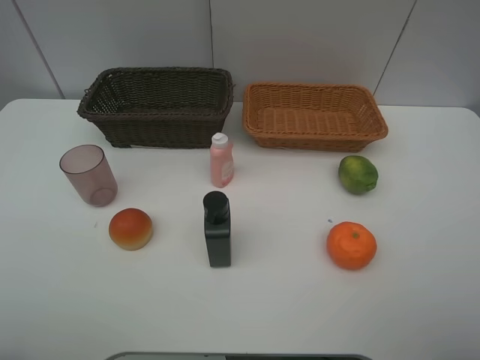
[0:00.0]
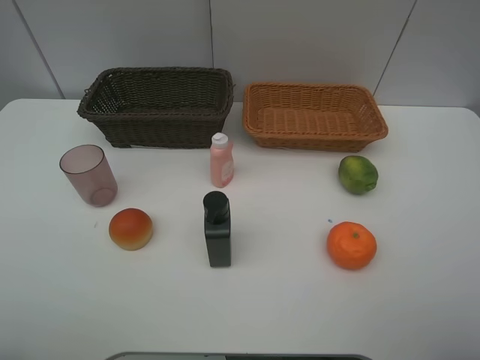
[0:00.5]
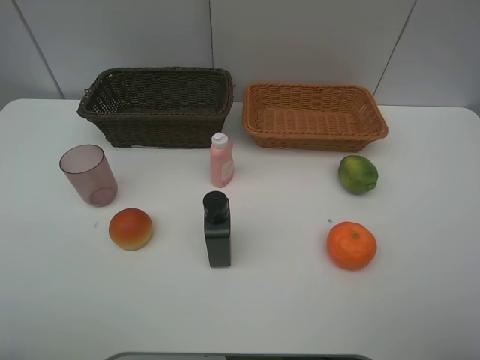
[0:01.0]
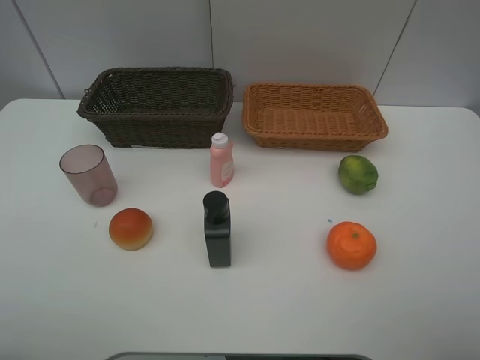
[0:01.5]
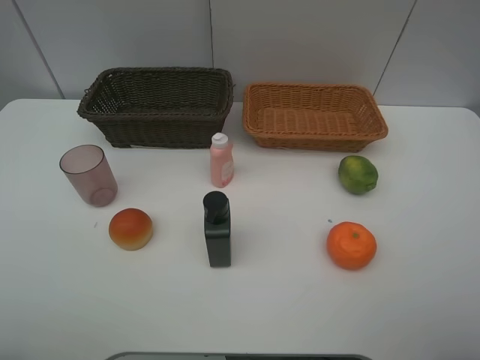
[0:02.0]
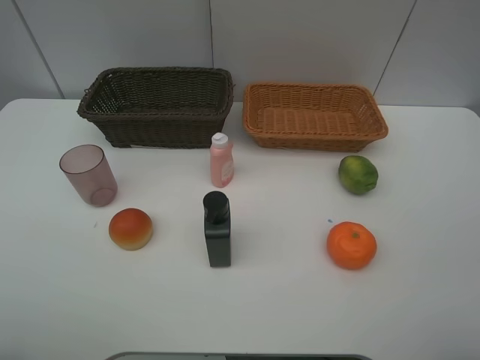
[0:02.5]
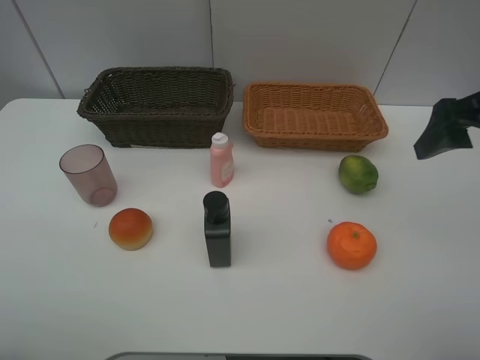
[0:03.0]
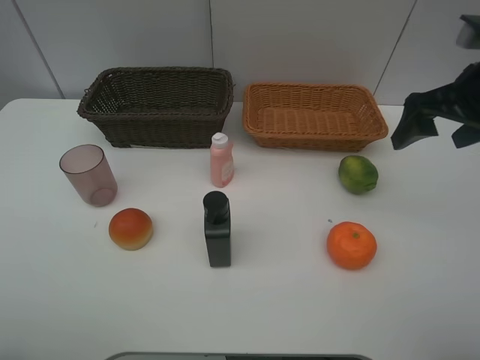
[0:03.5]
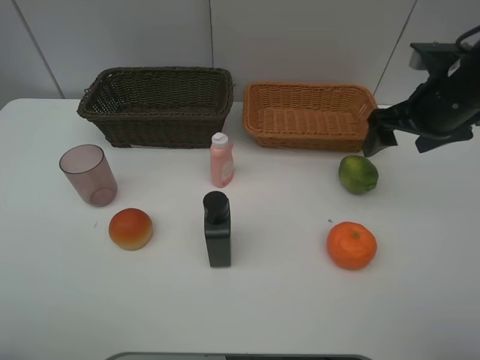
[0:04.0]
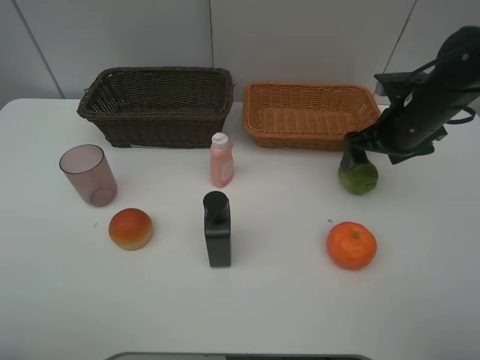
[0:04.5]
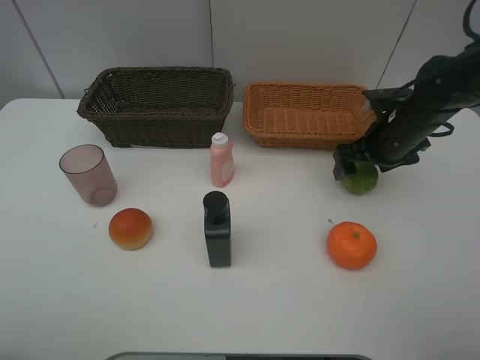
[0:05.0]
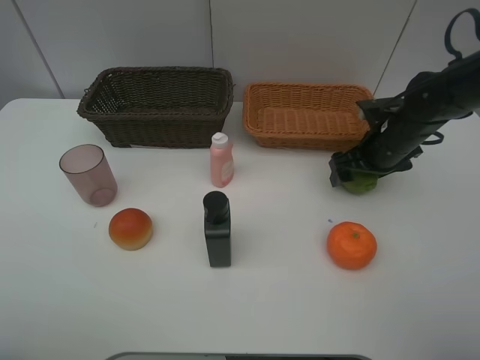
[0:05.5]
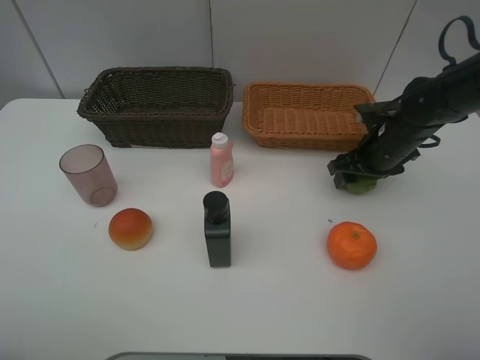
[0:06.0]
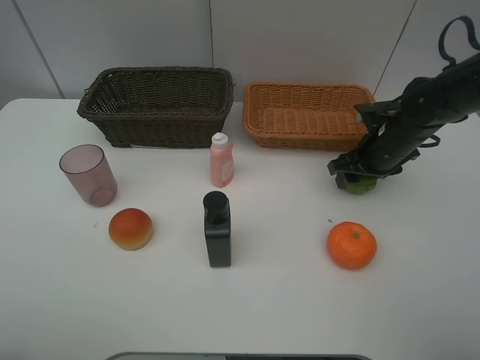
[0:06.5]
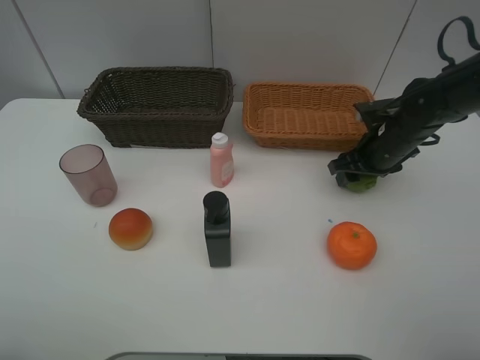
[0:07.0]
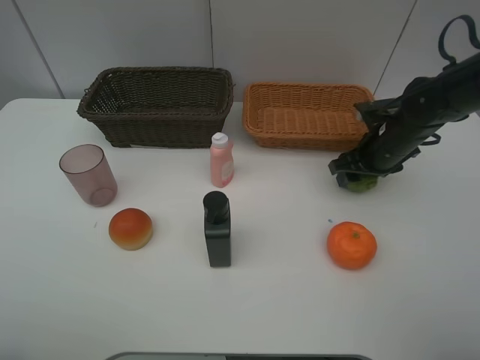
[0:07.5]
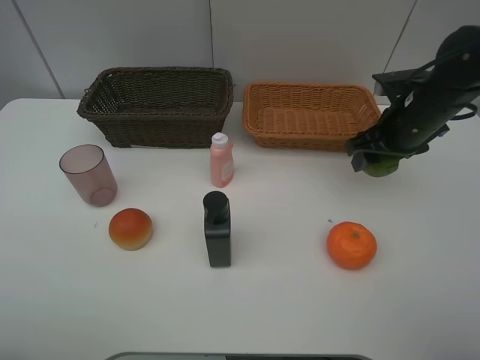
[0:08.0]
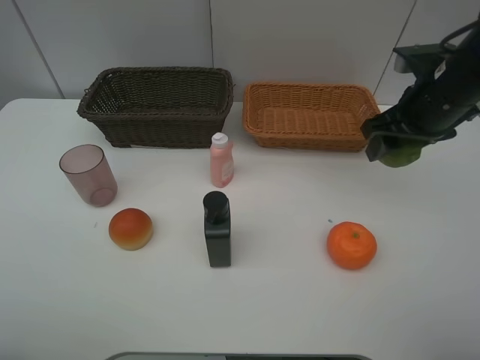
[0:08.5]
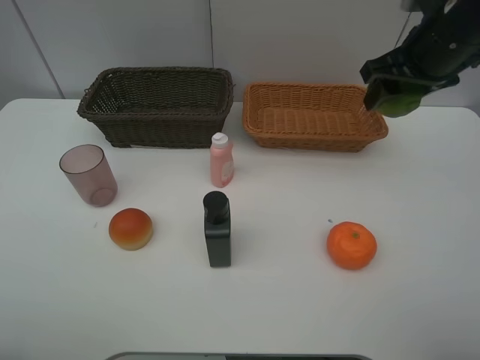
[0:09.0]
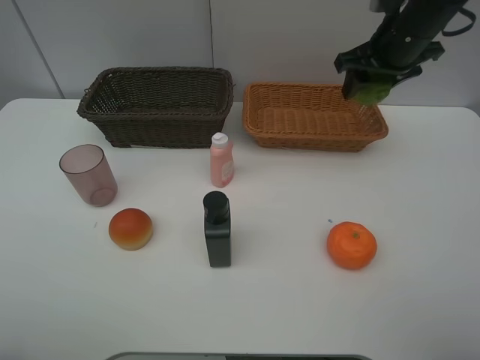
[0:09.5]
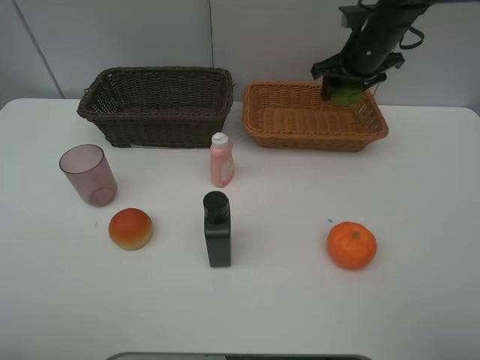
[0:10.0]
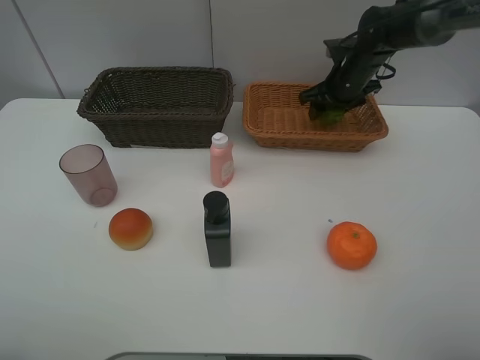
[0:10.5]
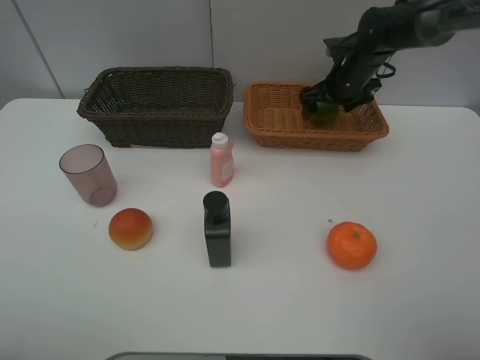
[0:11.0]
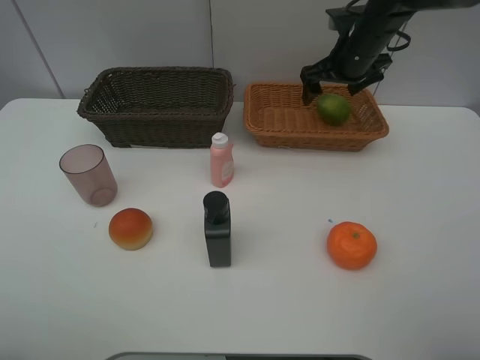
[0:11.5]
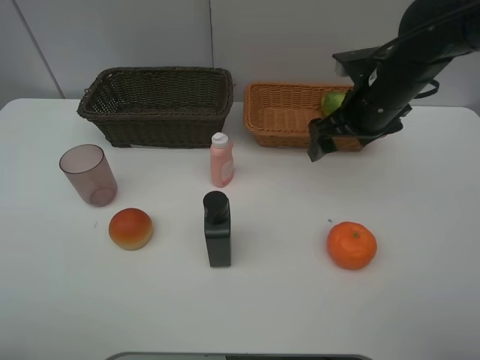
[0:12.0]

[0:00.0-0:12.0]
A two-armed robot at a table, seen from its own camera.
Task of the whole recording: place multiple objects separately in different baskets.
0.0 to 2.0 s: Both grippers stay put.
2.0 to 4.0 s: The right gripper moves forward, about 30 cm.
4.0 to 6.0 s: The right gripper shifts approximately 10 cm downward, and closes its fingers.
6.0 to 8.0 s: The right gripper shifts about 5 cm upward.
8.0 to 10.0 s: The right gripper moves forward, approximately 15 cm.
10.0 to 12.0 s: The right gripper travels backward by some 15 cm, and opens up.

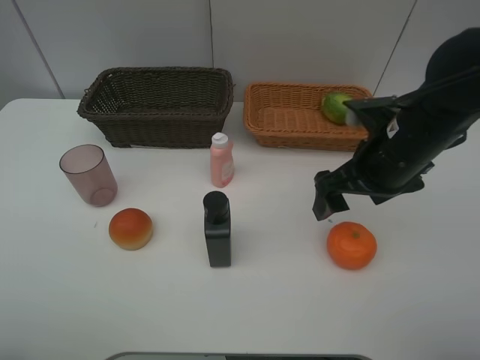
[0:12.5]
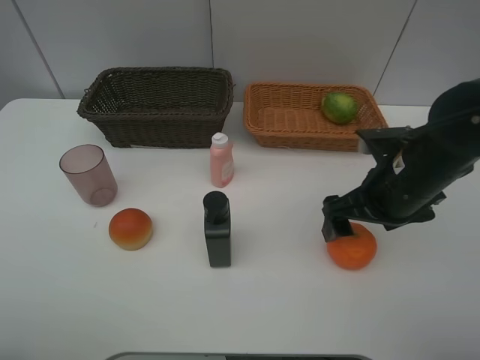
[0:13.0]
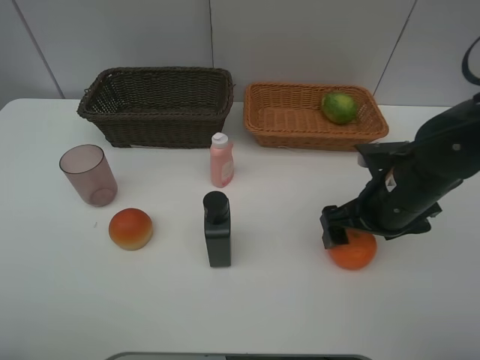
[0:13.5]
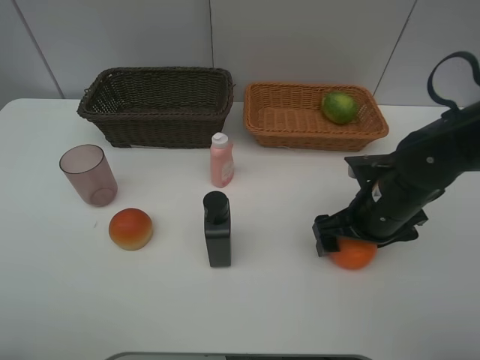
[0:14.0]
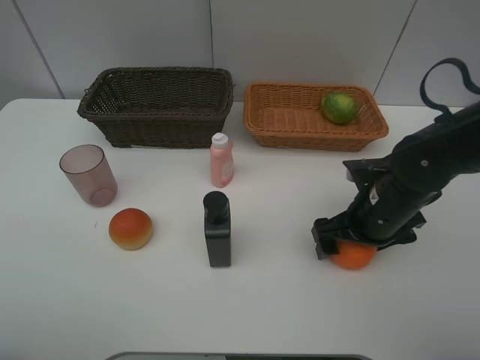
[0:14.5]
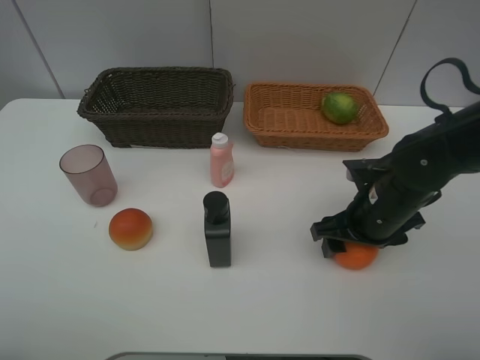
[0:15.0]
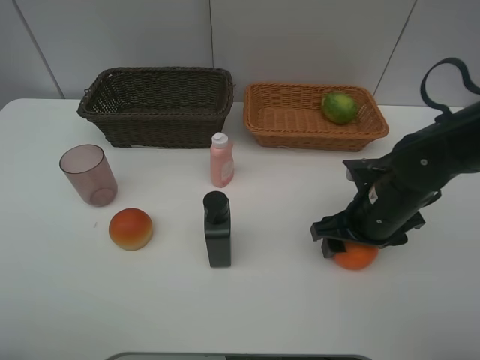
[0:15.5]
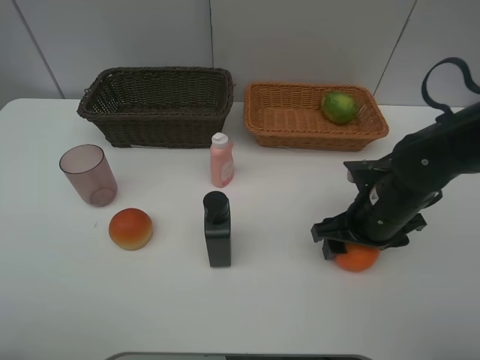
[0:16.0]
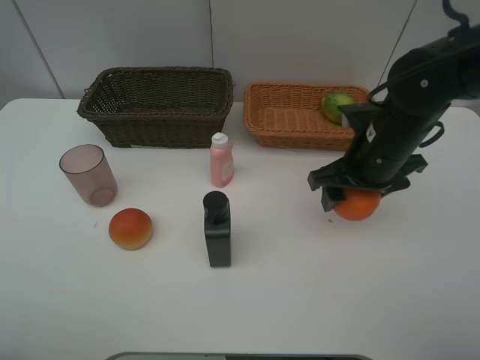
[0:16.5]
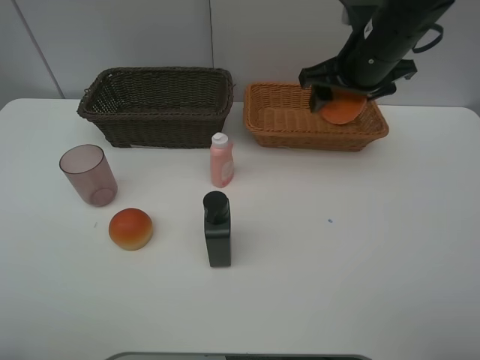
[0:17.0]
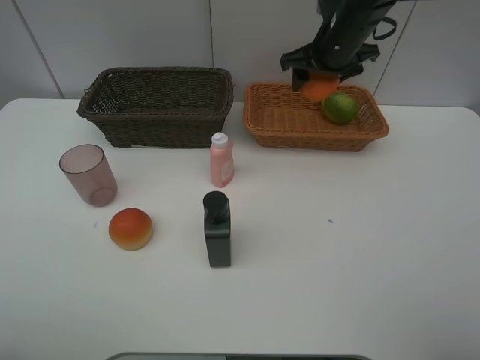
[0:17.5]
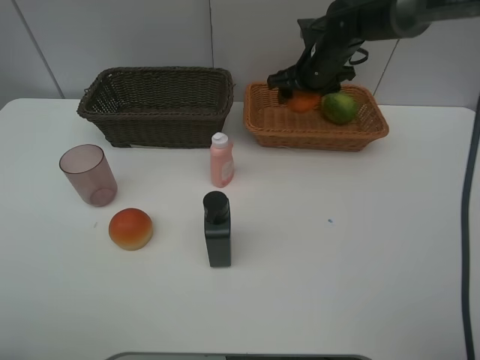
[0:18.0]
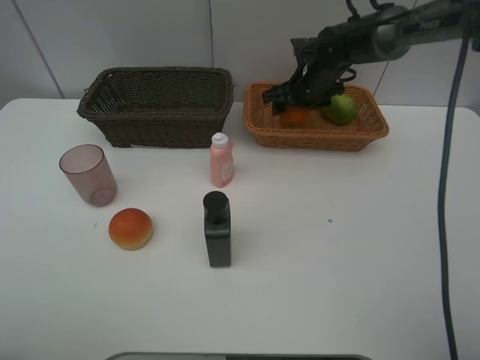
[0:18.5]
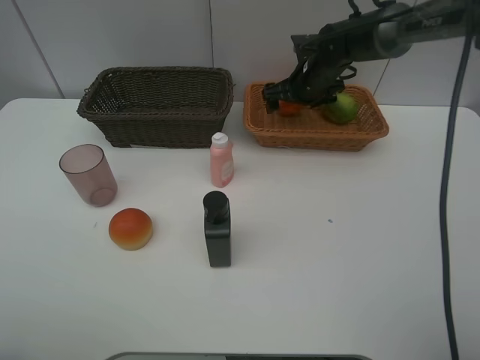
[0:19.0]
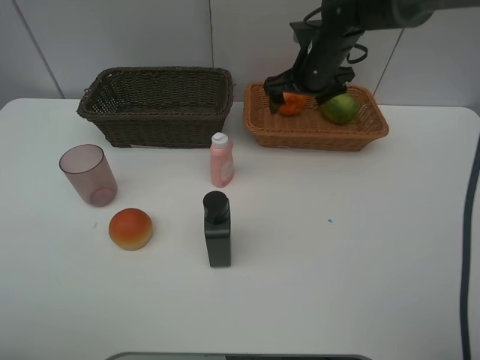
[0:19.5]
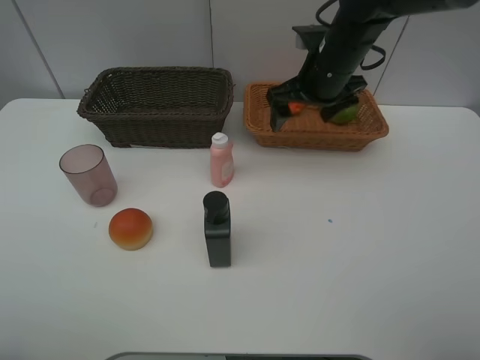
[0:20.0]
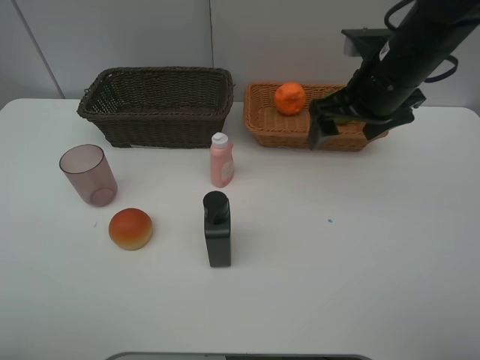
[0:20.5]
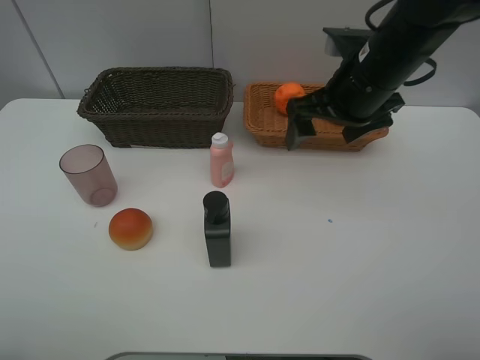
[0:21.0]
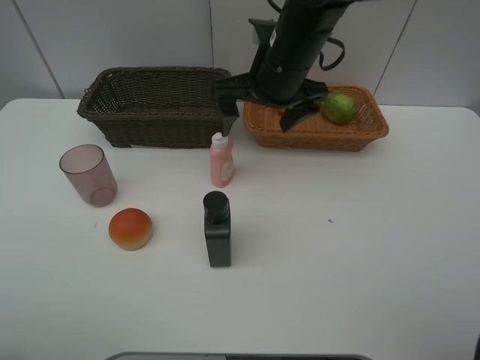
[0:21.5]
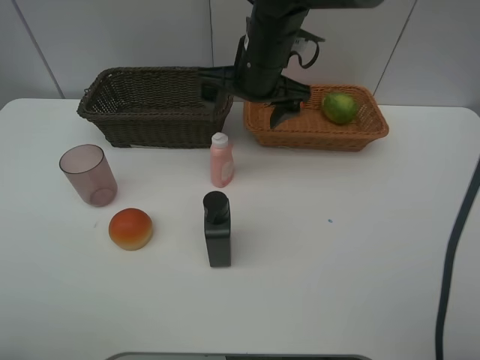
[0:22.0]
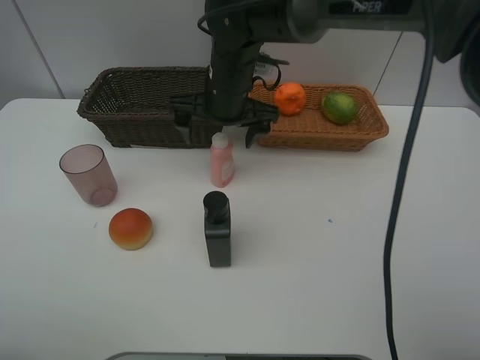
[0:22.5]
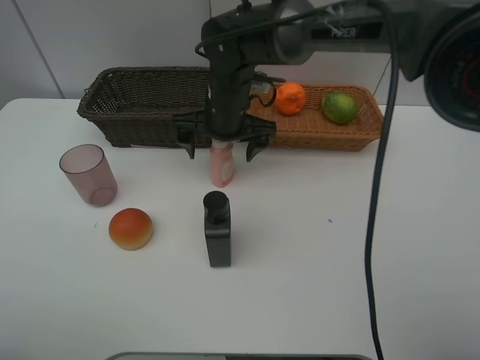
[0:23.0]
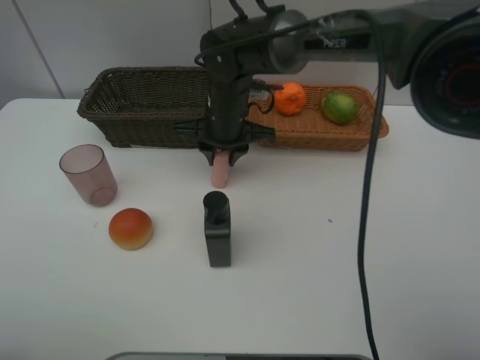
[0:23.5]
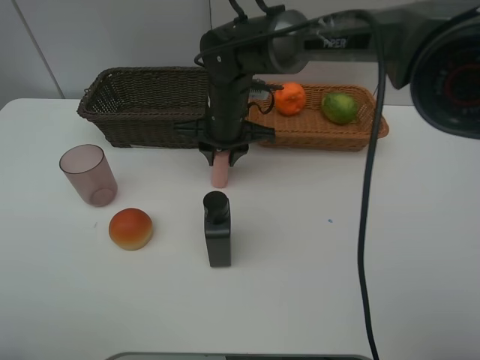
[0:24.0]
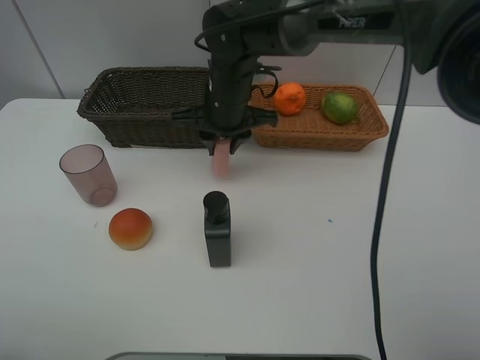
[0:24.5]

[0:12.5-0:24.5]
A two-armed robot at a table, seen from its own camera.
Task of the whole recording: place multiple objects separately in different baskets.
12.5 to 14.5 s: The right gripper goes roughly 10 cm downward.
14.5 to 16.5 s: The right gripper travels upward by roughly 5 cm, and closes.
16.5 to 18.5 s: The right gripper heads forward, covering approximately 20 cm.
18.5 to 20.5 s: The right gripper heads backward and upward, covering about 20 cm, and opens.
20.5 to 22.5 s: The right gripper goes some 20 cm to the left.
22.5 to 24.5 s: The right gripper closes.

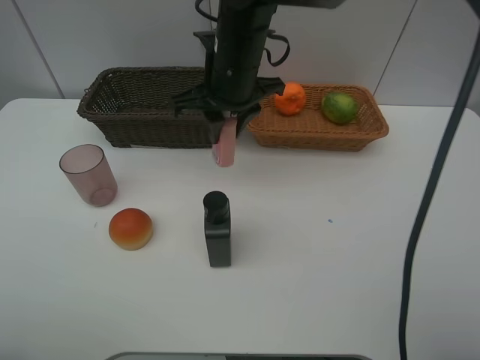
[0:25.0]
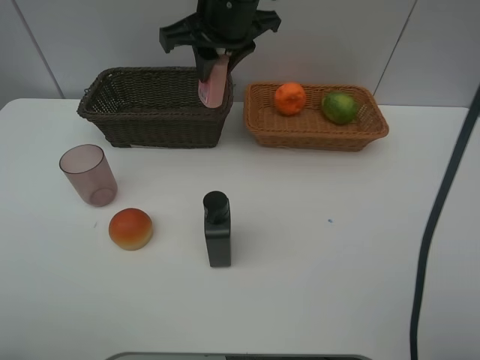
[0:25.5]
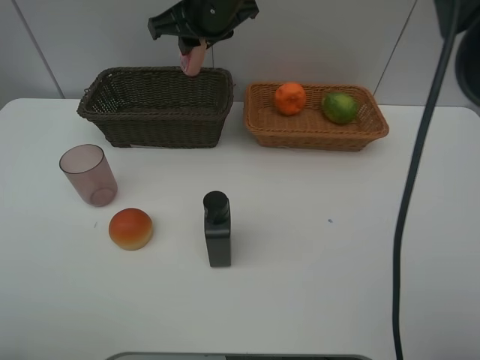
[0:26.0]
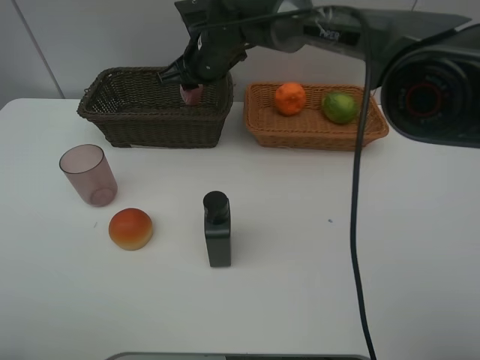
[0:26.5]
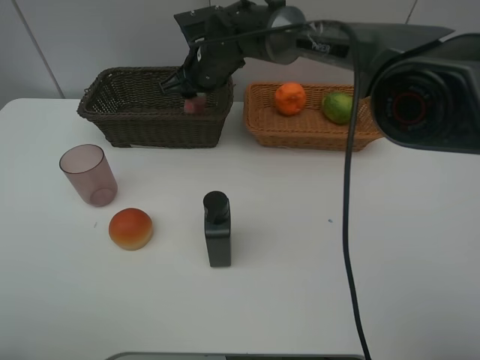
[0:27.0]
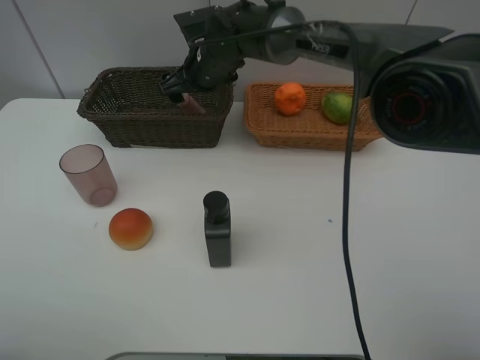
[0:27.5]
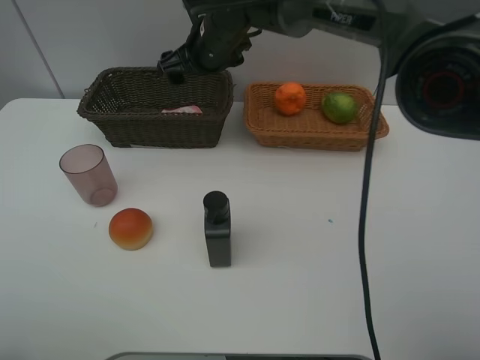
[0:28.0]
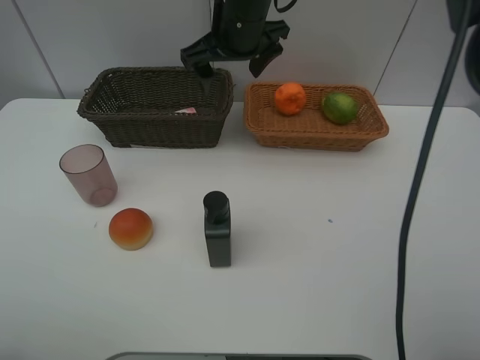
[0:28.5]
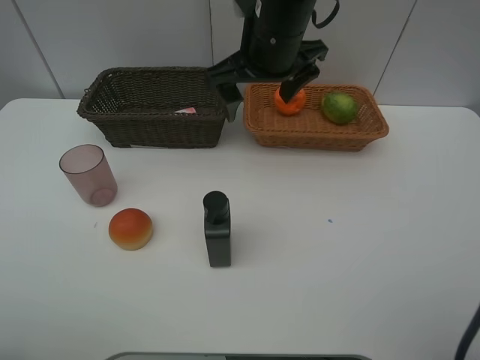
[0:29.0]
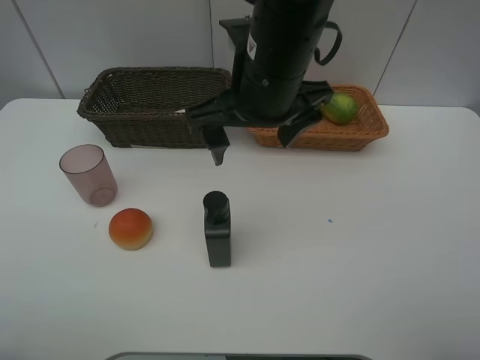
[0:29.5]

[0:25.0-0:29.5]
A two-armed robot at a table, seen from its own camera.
Task of the whole recording: place multiple objects separately in different baskets.
25.0 to 27.0 s: The right gripper moves forward and downward, roughly 10 cm.
27.0 to 29.5 s: The right gripper shifts approximately 20 cm backward and upward, and opens its fingers.
